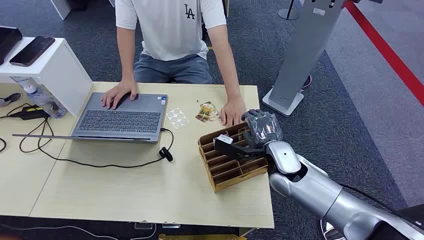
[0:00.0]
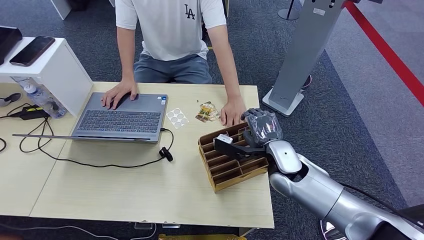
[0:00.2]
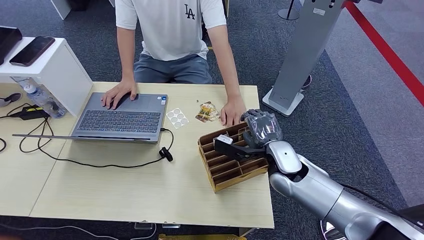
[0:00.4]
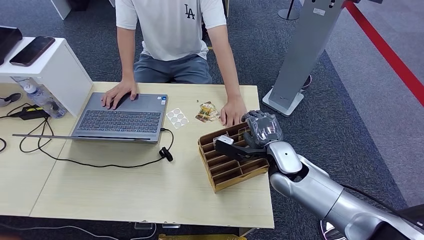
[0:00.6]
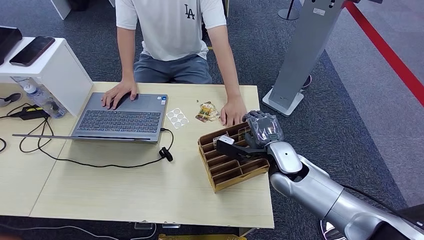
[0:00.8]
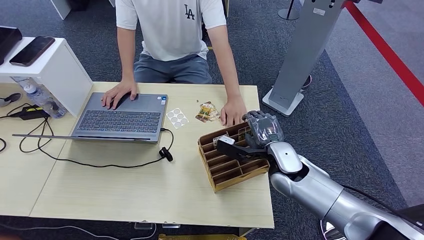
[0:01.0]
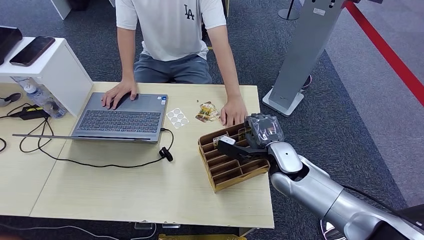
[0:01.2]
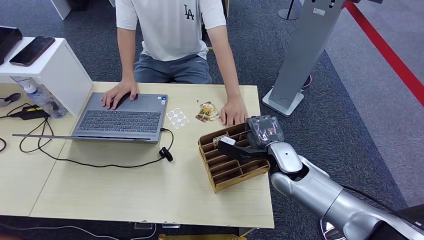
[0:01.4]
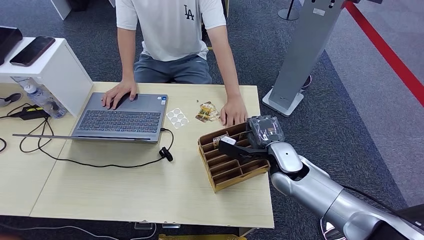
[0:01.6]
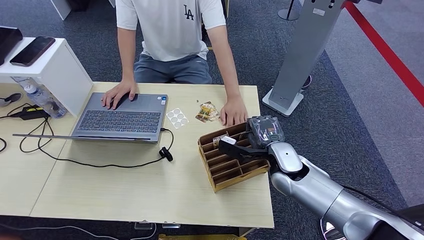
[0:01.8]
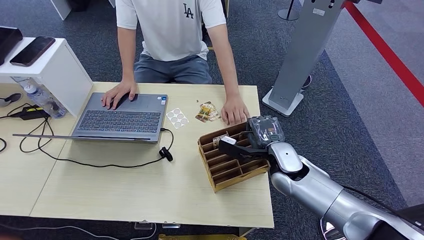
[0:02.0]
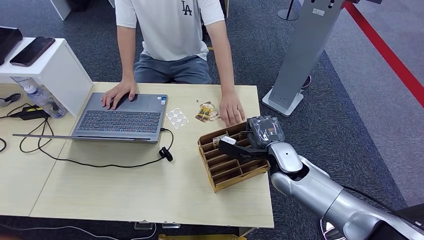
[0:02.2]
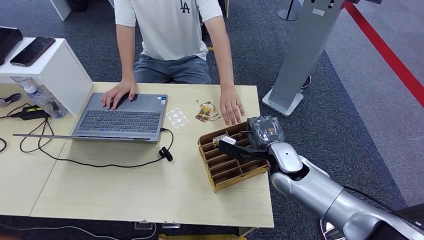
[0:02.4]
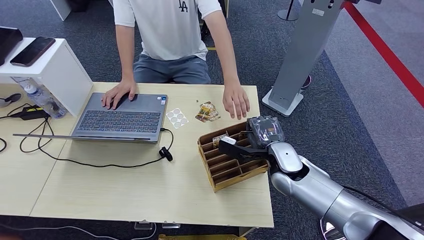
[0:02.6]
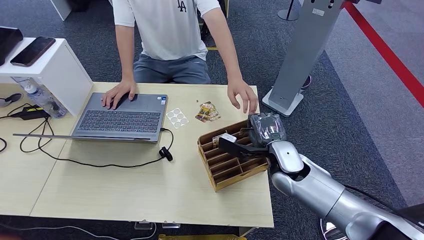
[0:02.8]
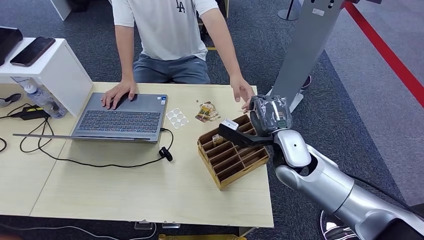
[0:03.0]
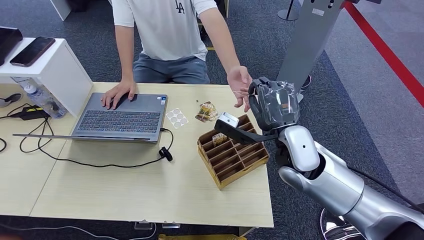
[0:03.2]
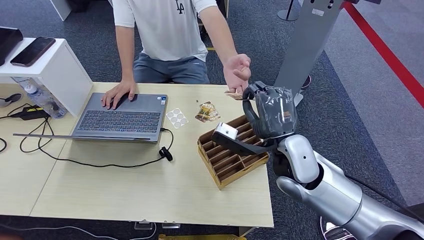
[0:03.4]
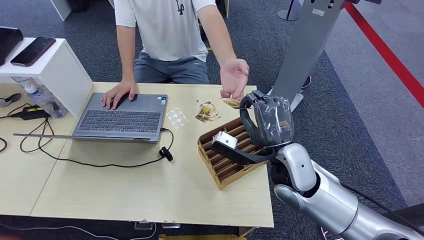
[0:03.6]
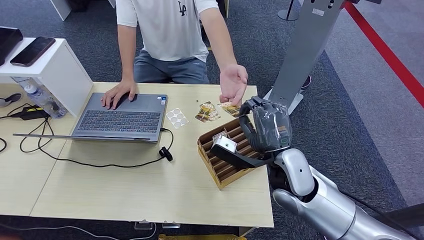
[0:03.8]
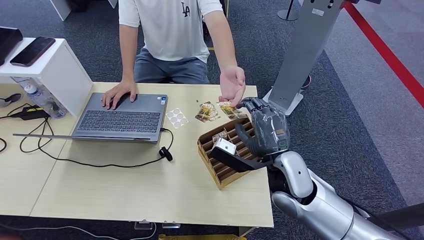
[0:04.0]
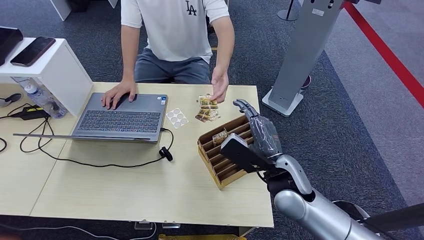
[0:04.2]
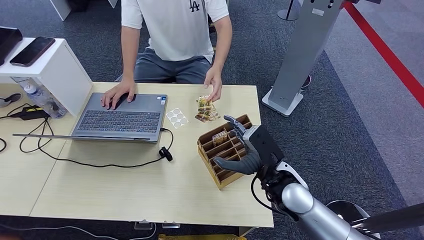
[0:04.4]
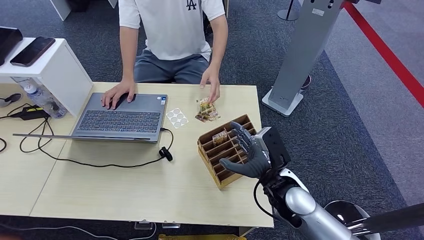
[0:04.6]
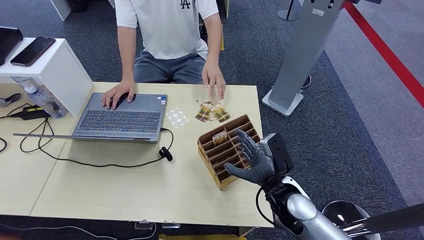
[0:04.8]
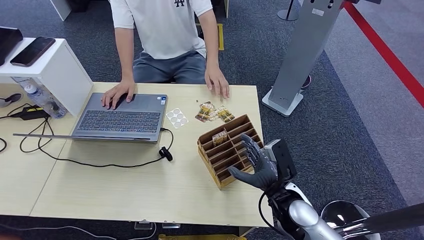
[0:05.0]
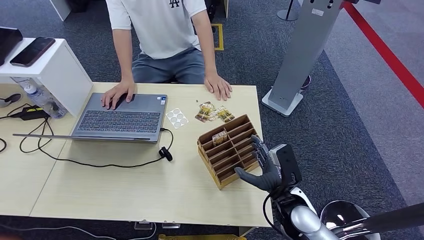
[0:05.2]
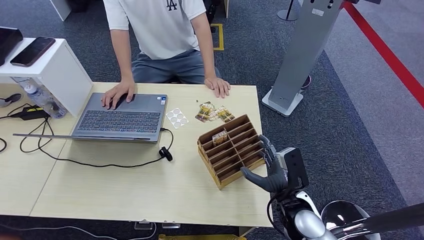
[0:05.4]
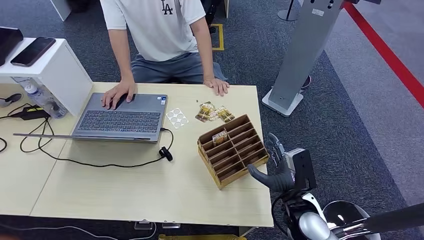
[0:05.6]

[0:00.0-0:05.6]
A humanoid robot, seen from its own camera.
Step, 0:00.0 to 0:03.0: Pick up the room card from the card holder.
Step, 0:03.2 to 0:05.4: Hand the room card to the target.
0:01.4 to 0:02.8: The right hand heads upward, covering approximately 10 cm.
0:02.8 to 0:04.2: The right hand is displaced downward by roughly 10 cm.
0:04.2 to 0:05.6: The right hand heads backward and to the right, covering roughly 10 cm.
